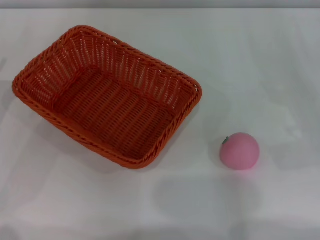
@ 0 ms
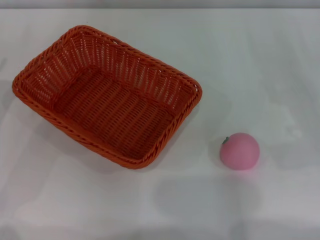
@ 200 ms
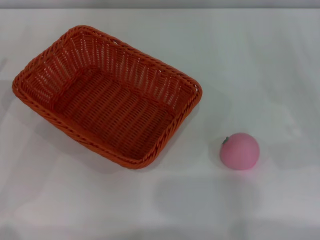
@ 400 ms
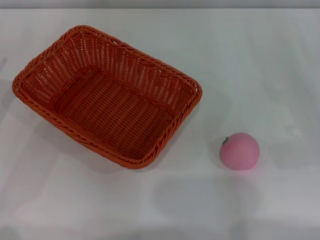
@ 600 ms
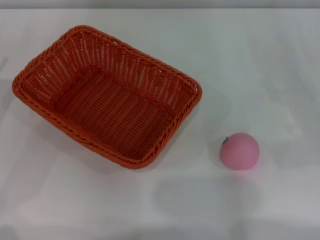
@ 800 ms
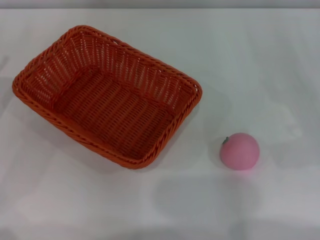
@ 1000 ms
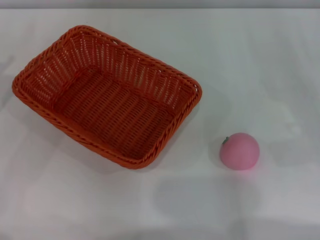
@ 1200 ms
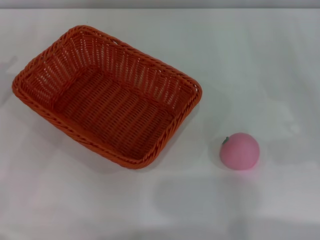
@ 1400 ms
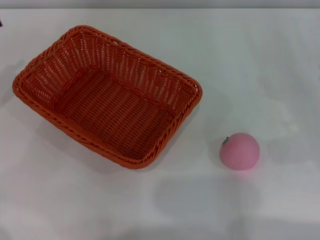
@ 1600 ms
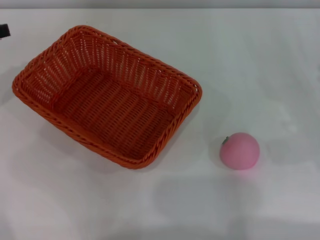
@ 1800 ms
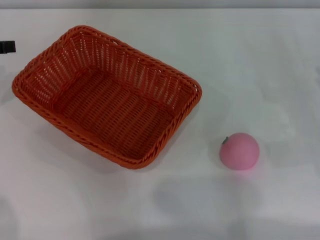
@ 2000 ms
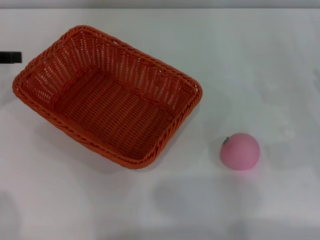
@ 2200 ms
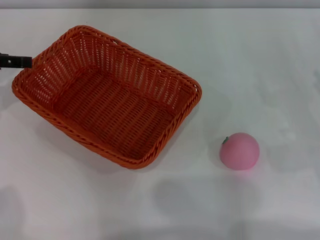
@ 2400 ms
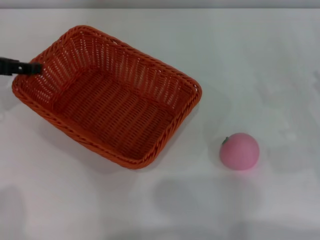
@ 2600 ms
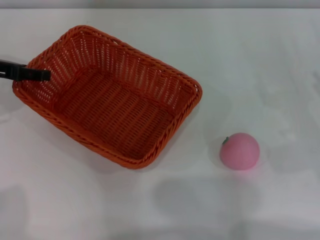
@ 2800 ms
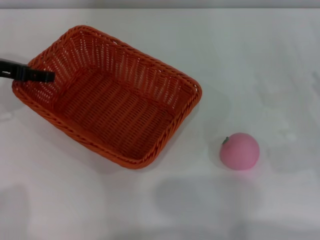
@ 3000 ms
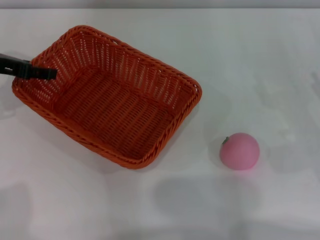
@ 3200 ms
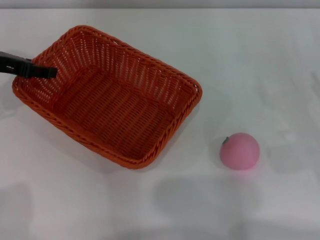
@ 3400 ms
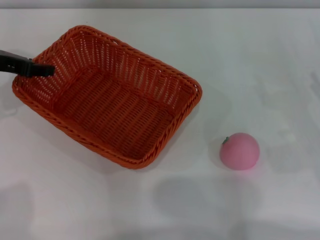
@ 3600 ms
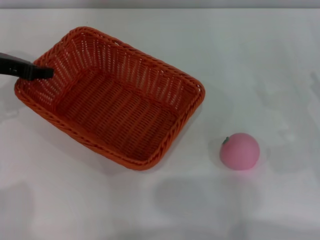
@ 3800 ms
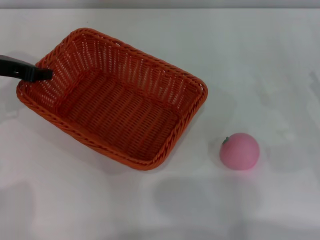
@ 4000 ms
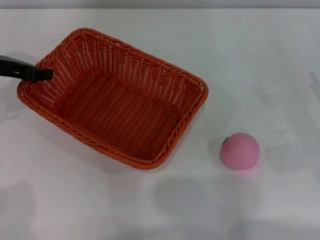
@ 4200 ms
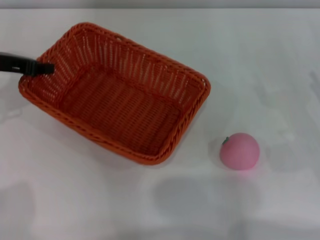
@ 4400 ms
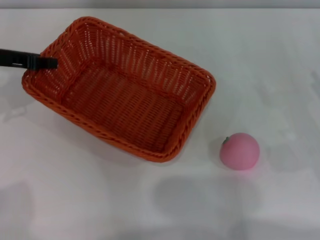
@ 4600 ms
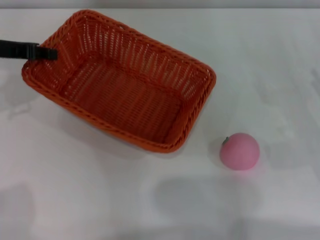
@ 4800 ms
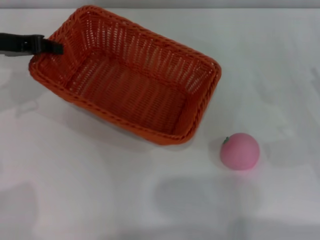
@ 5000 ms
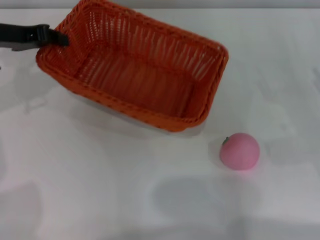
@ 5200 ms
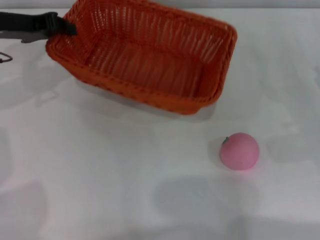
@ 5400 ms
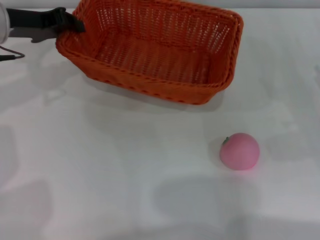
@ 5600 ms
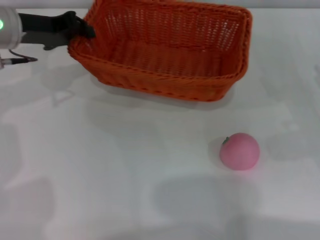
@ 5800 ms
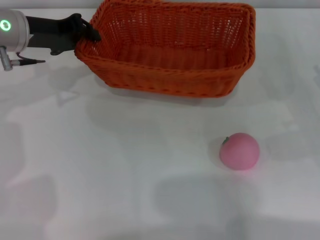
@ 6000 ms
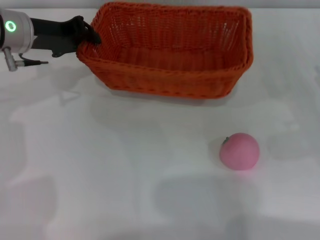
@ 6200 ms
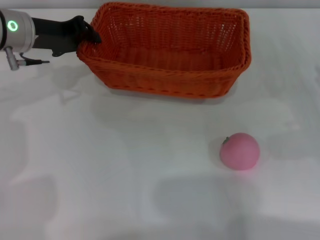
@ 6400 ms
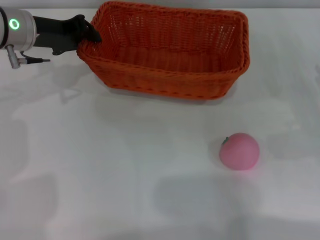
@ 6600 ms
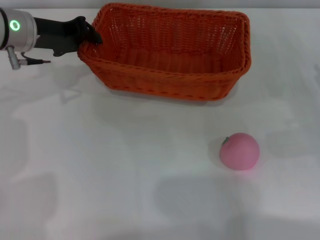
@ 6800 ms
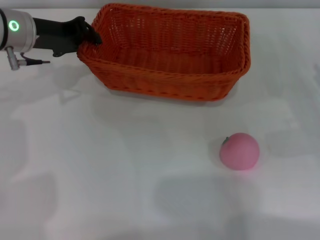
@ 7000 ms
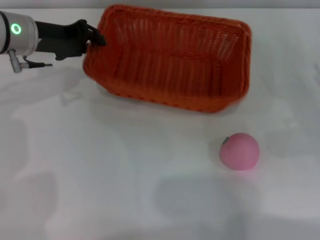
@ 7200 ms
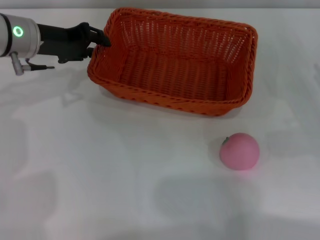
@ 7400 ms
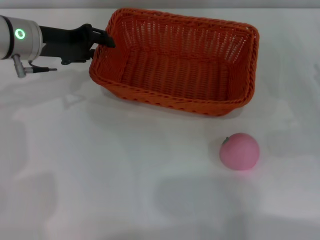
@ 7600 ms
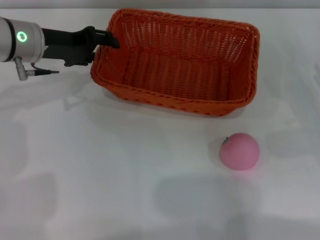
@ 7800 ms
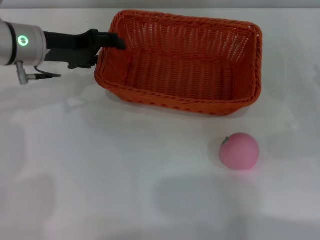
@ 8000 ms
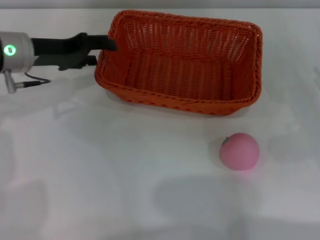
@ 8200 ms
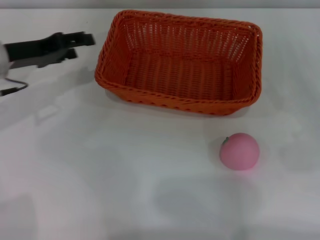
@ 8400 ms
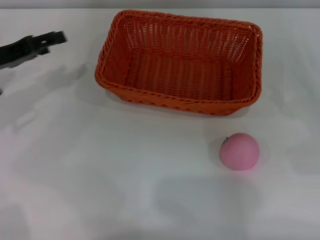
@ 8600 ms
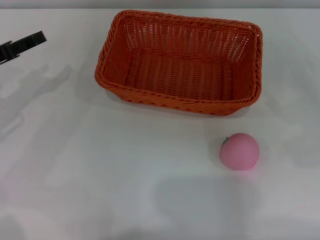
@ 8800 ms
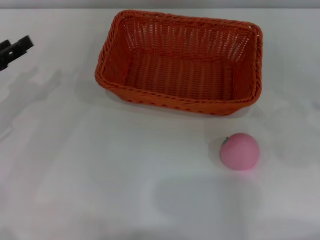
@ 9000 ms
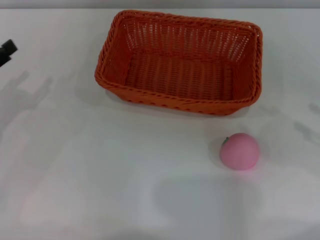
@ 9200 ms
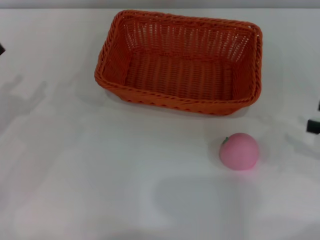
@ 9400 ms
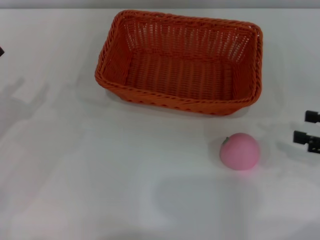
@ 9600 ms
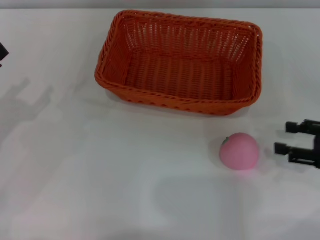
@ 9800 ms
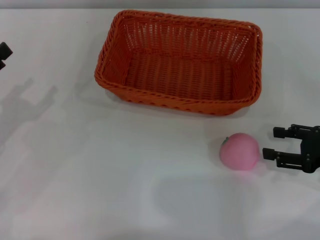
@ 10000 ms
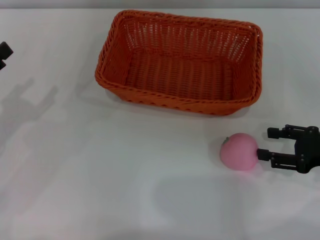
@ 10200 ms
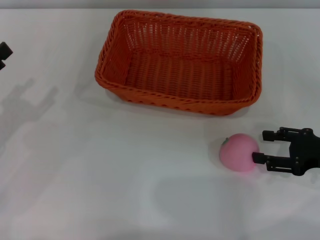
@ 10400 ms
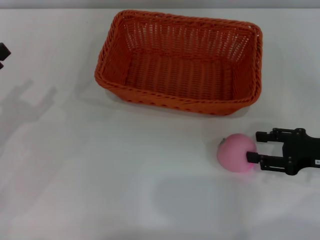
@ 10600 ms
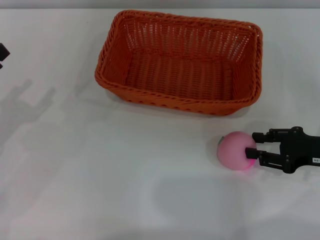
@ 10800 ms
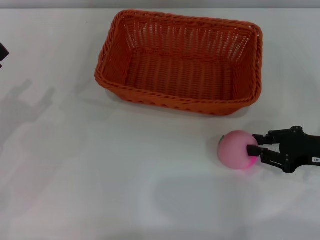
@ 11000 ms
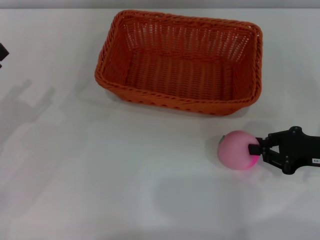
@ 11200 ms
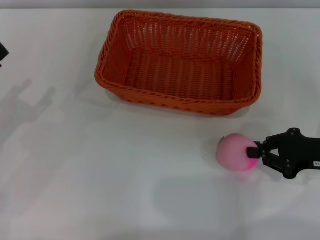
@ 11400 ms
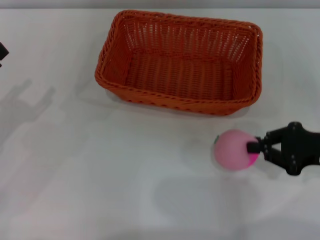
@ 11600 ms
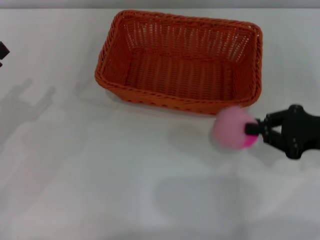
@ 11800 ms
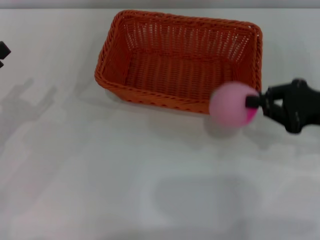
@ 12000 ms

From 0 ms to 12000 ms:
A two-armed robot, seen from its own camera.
Step, from 0 ms to 4800 ms: Pick up the light basket with the left gripper.
Step, from 5000 ms to 8400 ms: Place the light basket in the center of view with the right gripper.
Step, from 8600 ms to 11800 ms: Pick up the peach with the left gripper.
From 1600 ms to 3000 ms: The left gripper goes some 10 cm to the right and forward.
From 3000 ms to 4400 ms: The left gripper closes its fingers.
From 4400 ms to 6000 ms: The left gripper goes approximately 5 cm to the right.
From 6000 ms to 7600 ms: The left gripper opens its fingers.
From 7600 ms to 9000 ms: The left gripper goes roughly 15 cm to the left and backward, and opens. The right gripper is displaced upward by about 10 cm.
From 9000 ms to 10400 ms: The left gripper travels backward by some 5 cm. The right gripper is displaced to the left and downward by about 10 cm.
From 10400 ms to 12000 ms: The right gripper moves upward, about 5 cm, and closes its fingers.

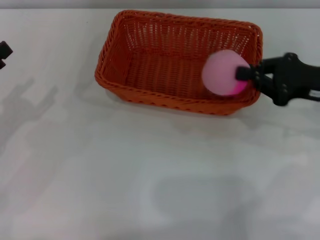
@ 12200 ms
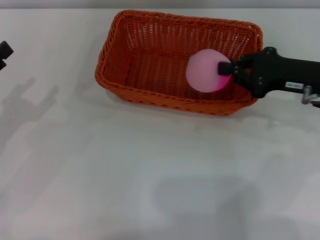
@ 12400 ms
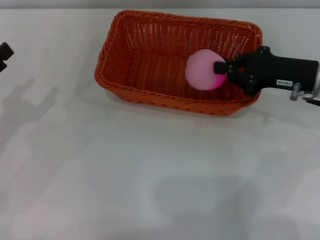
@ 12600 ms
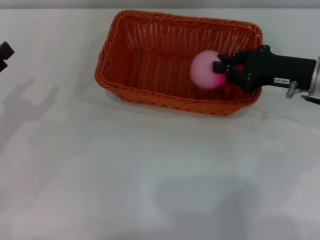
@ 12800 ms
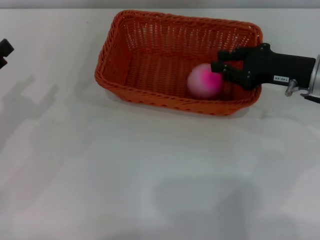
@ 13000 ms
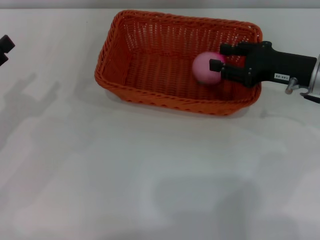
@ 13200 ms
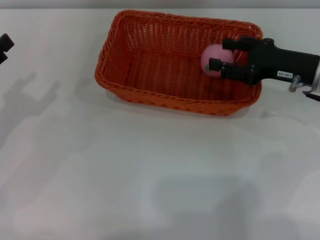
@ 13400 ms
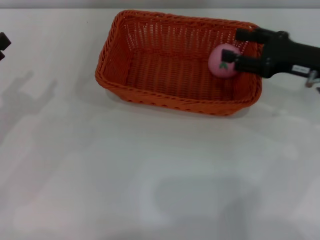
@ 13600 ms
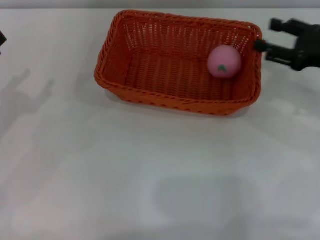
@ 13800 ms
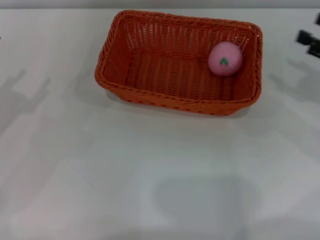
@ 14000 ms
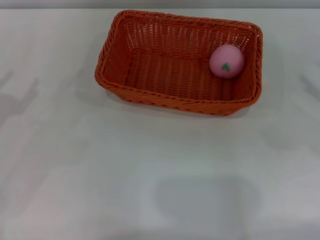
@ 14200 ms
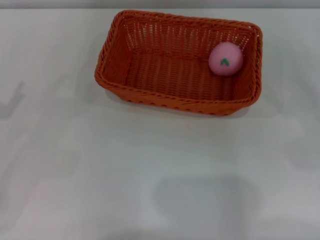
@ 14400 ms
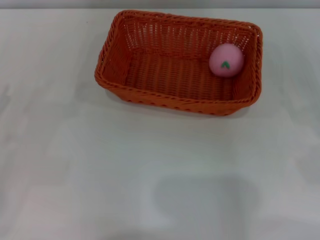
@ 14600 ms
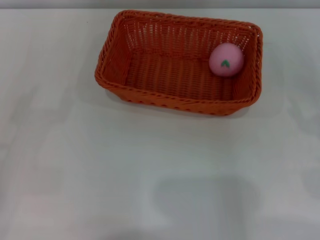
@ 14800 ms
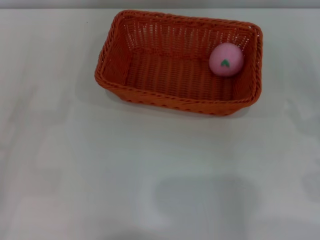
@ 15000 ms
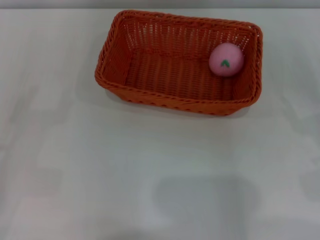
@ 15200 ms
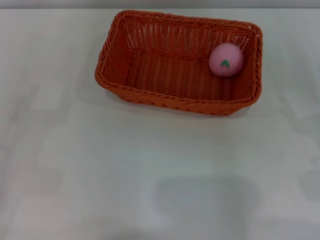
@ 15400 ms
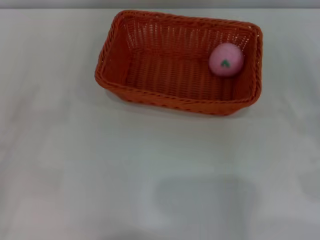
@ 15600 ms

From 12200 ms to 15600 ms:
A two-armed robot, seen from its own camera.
From 12200 ms to 13800 ms: The right gripper opens up.
From 13800 ms to 15600 ms: The right gripper heads backward, to the right and downward, covering about 15 cm.
